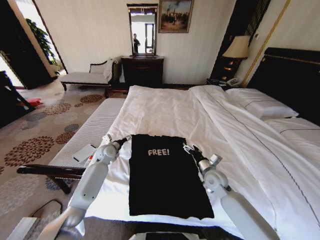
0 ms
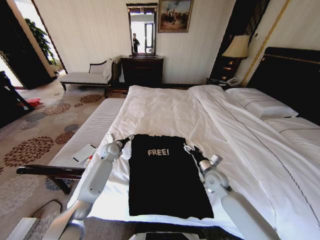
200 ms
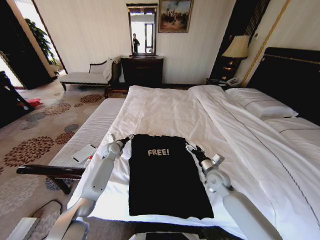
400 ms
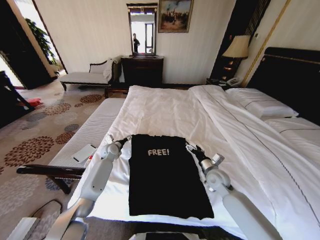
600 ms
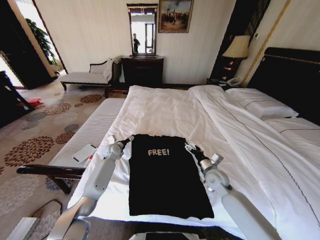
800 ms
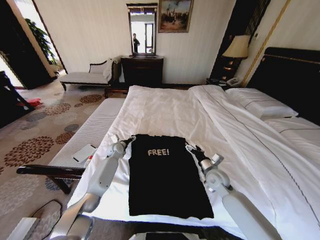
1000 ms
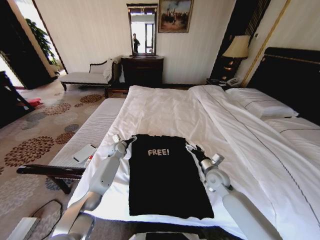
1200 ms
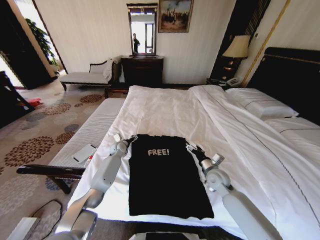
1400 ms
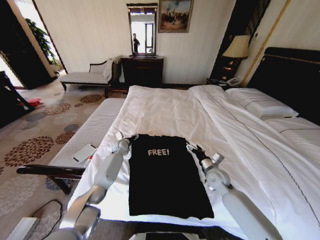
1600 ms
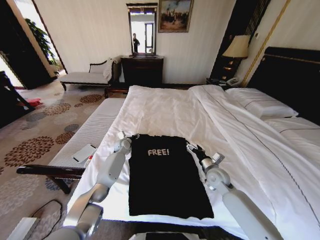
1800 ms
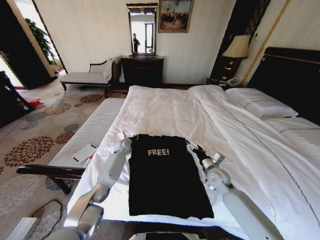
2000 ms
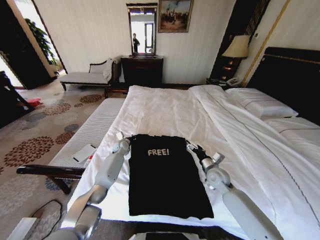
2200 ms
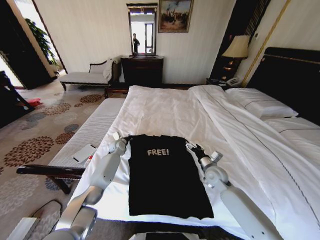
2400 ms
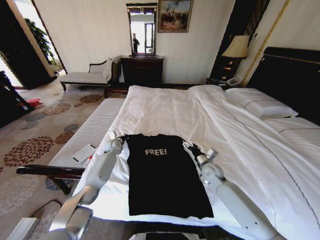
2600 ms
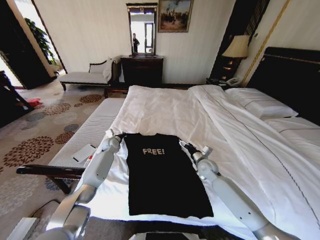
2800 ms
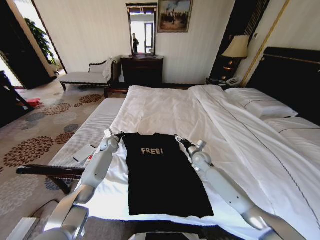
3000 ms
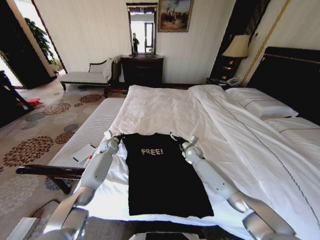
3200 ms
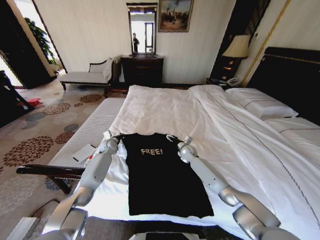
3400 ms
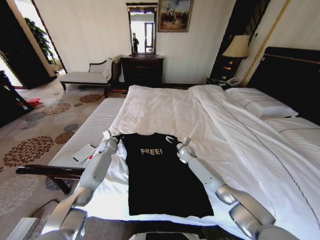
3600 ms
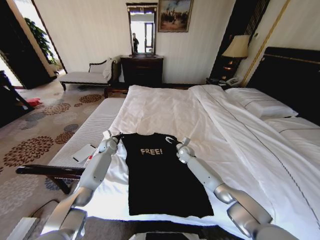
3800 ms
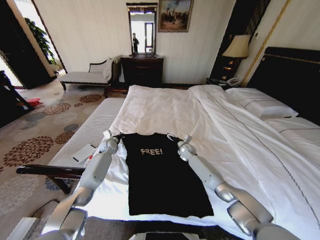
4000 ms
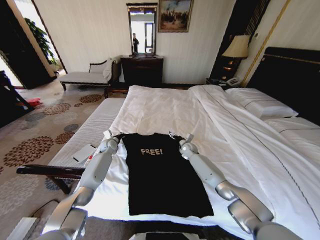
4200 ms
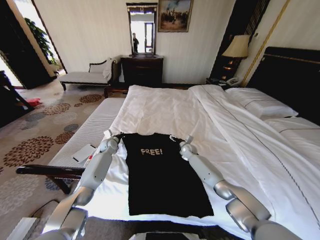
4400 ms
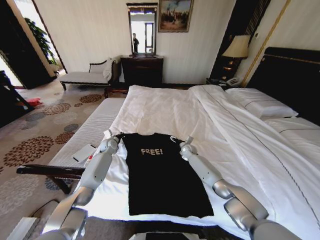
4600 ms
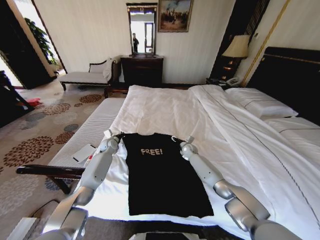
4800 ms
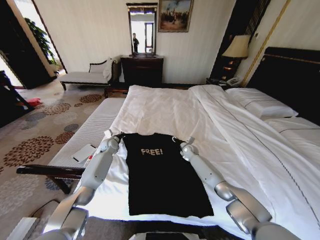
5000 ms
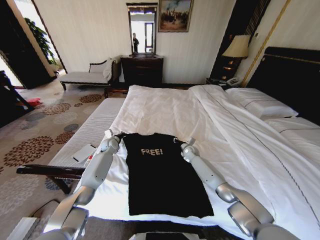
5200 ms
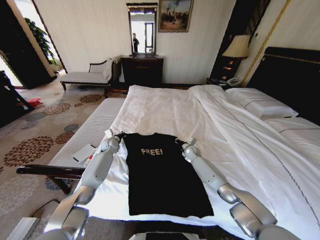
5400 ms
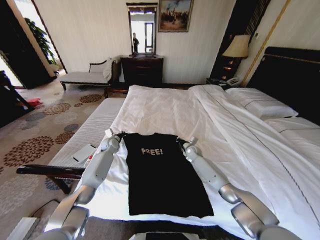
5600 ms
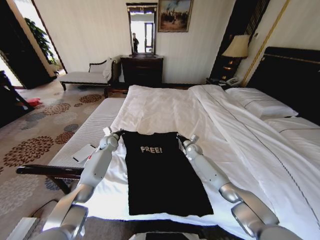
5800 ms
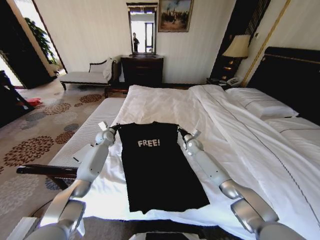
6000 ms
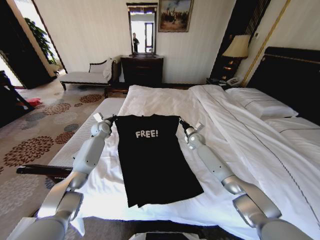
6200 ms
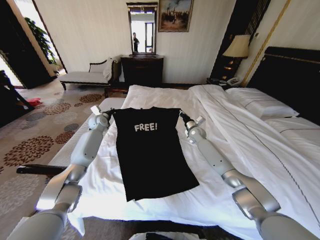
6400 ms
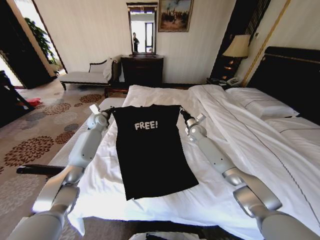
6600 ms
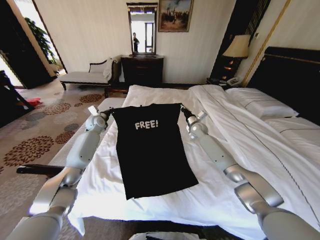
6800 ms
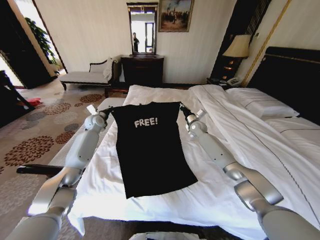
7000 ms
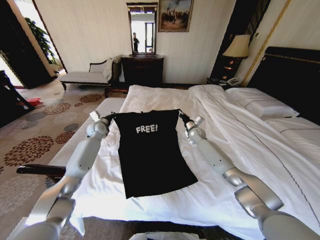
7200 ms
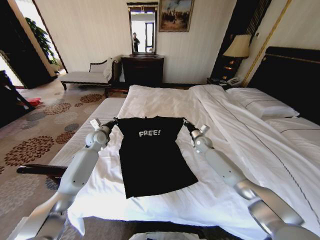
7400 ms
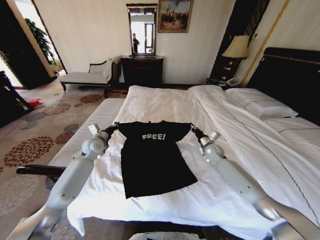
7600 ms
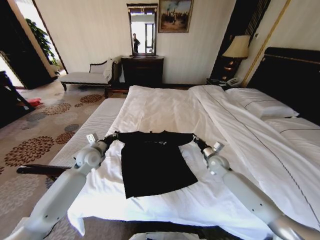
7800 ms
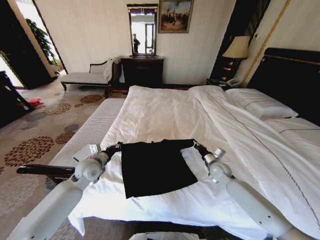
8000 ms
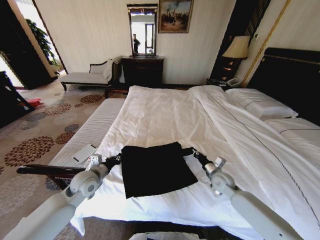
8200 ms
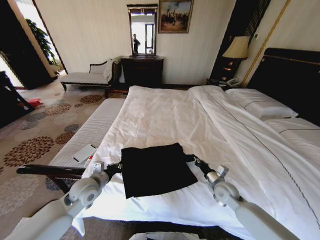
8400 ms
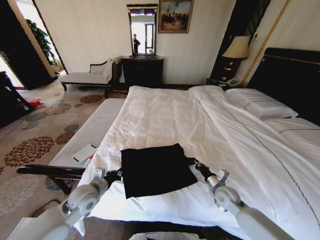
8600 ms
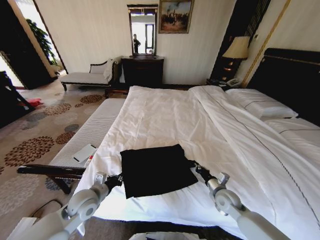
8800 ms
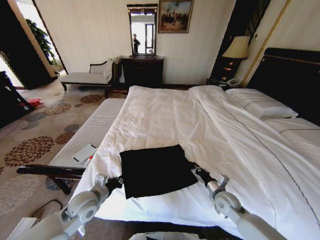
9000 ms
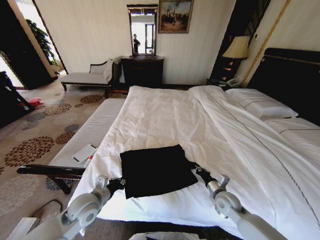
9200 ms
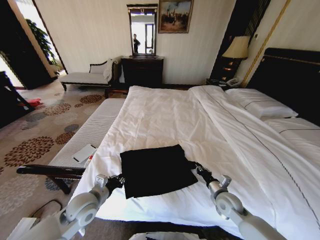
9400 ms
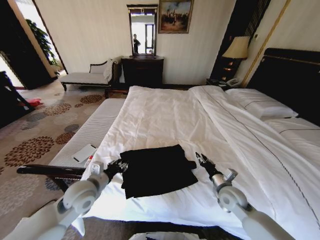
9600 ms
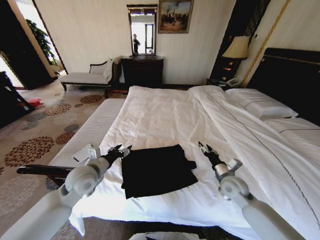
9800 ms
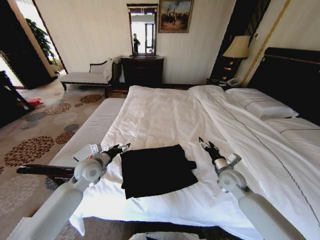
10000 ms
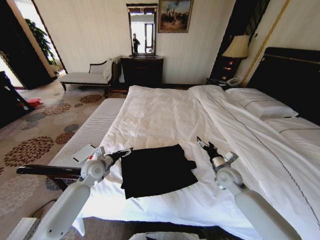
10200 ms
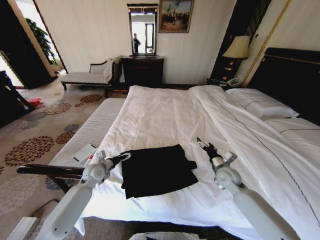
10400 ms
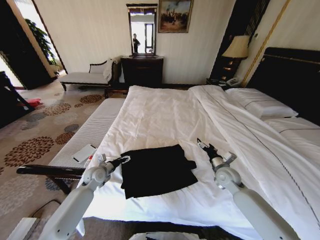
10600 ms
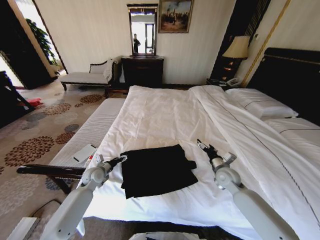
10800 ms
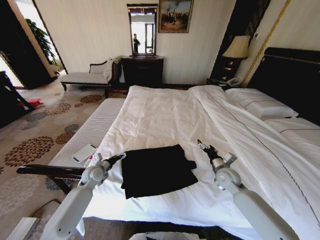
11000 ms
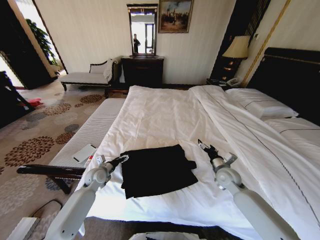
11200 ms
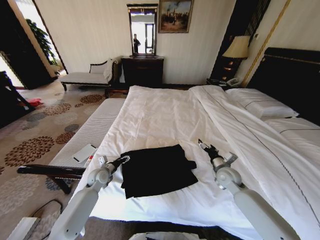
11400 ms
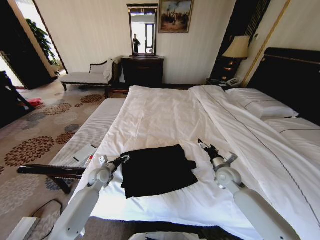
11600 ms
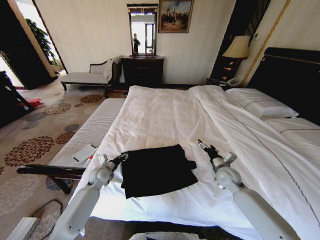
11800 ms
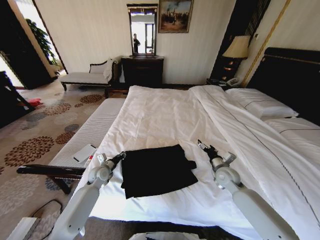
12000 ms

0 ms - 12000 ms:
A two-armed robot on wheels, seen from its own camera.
Task of the whole recording: Fold the clothes on the bed.
0 ms - 1600 ms: The left gripper shifts about 10 cm forward.
1600 ms - 3000 ms: The right gripper travels forward by some 10 cm; the left gripper shifts approximately 5 cm to the left, and closes its fingers.
3000 ms - 4400 ms: The right gripper travels forward and downward by about 10 cm.
4400 ms - 6000 ms: The right gripper ends up approximately 5 cm from where it was, and closes up. The left gripper heads upward, covering about 5 cm.
6000 ms - 7600 ms: The left gripper heads backward, covering about 10 cm; the right gripper goes roughly 10 cm to the right and backward.
7600 ms - 9000 ms: Both grippers travel together backward, about 25 cm.
9000 ms - 10400 ms: The right gripper goes some 10 cm forward and upward, and opens up, while the left gripper is displaced forward by roughly 15 cm, and opens.
10400 ms - 12000 ms: The left gripper closes.

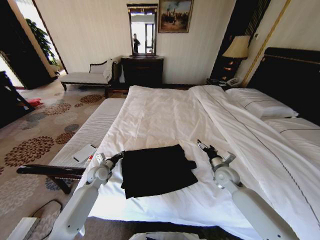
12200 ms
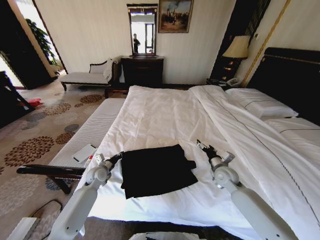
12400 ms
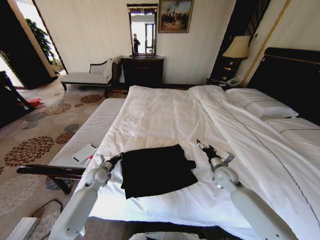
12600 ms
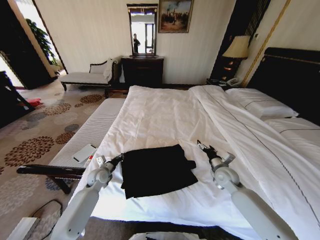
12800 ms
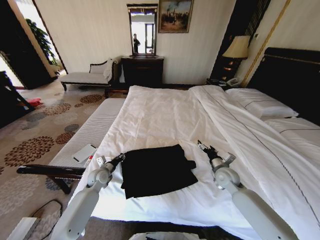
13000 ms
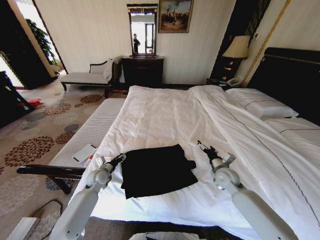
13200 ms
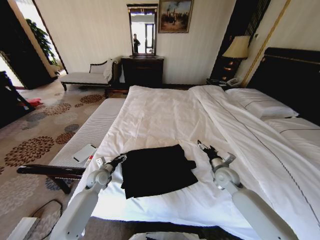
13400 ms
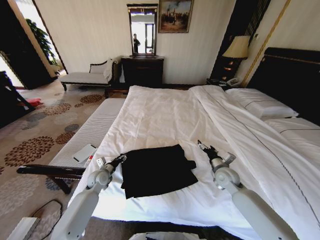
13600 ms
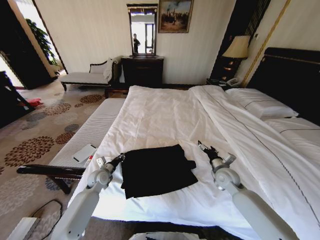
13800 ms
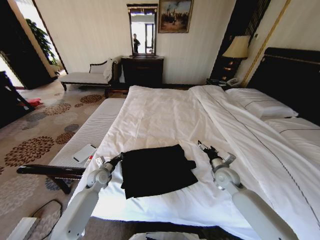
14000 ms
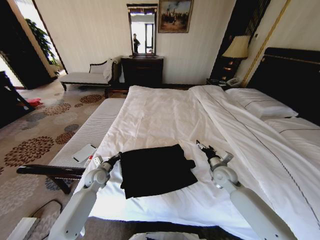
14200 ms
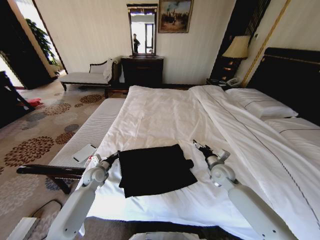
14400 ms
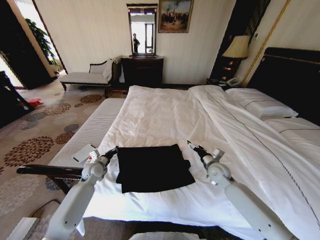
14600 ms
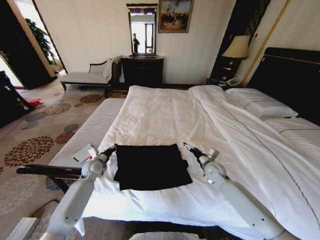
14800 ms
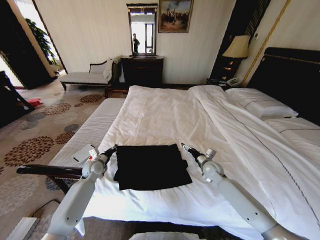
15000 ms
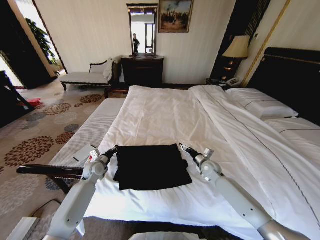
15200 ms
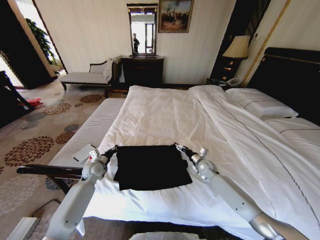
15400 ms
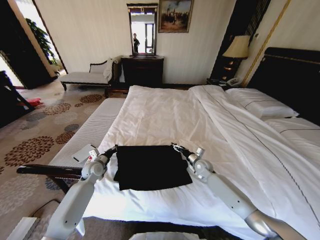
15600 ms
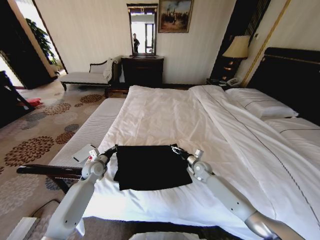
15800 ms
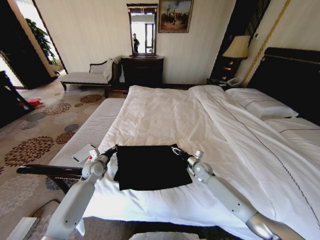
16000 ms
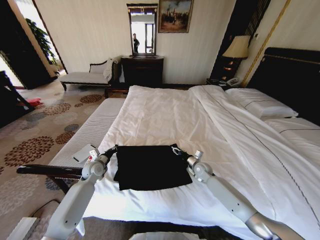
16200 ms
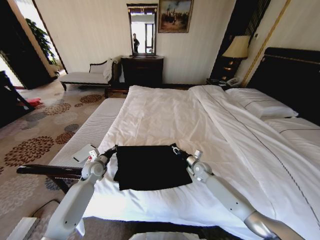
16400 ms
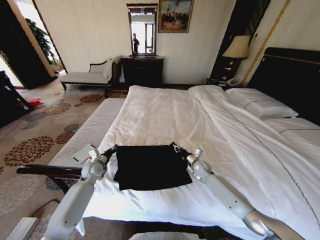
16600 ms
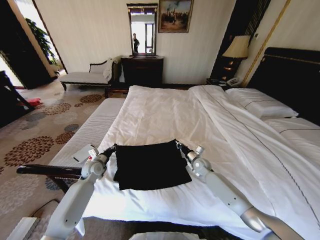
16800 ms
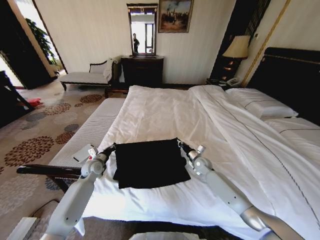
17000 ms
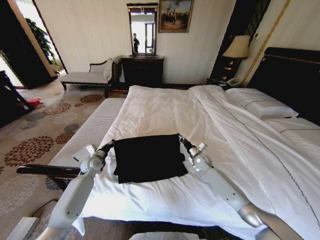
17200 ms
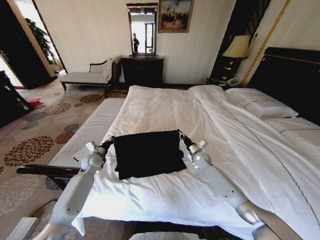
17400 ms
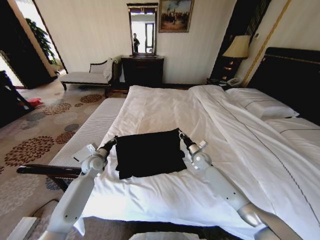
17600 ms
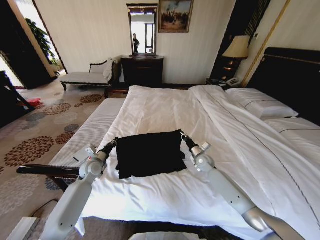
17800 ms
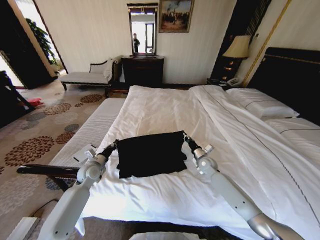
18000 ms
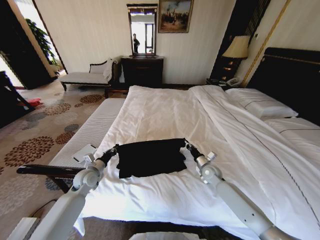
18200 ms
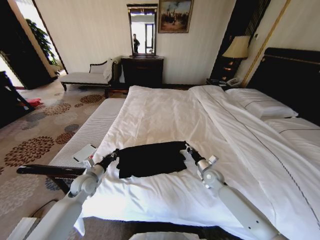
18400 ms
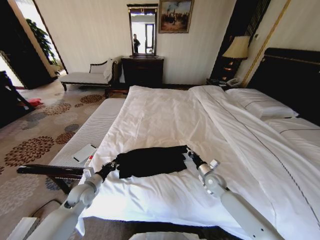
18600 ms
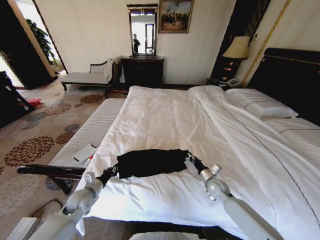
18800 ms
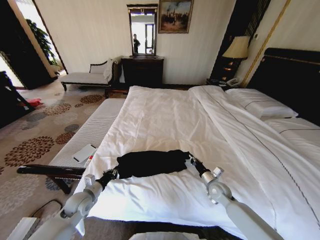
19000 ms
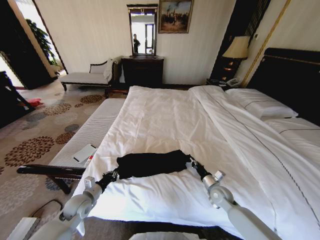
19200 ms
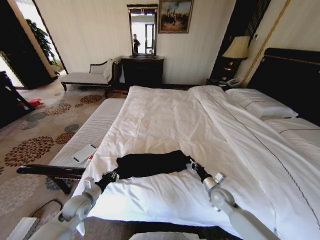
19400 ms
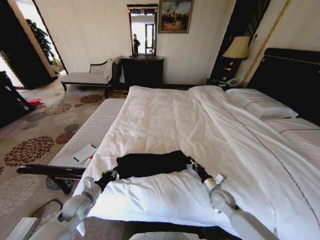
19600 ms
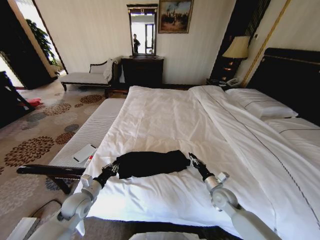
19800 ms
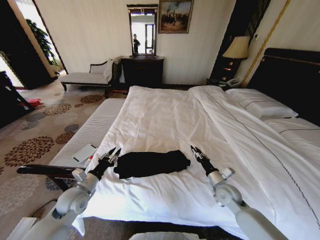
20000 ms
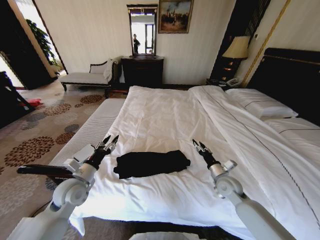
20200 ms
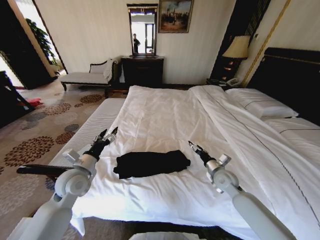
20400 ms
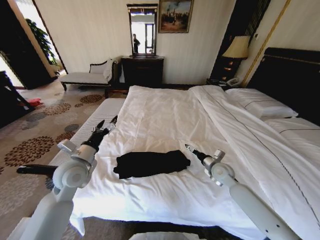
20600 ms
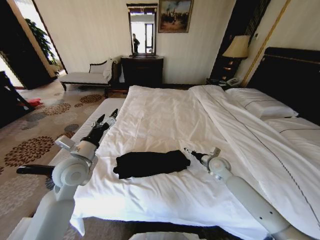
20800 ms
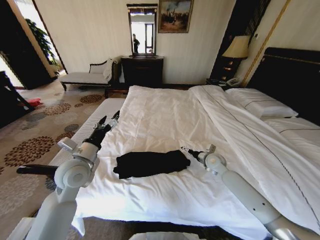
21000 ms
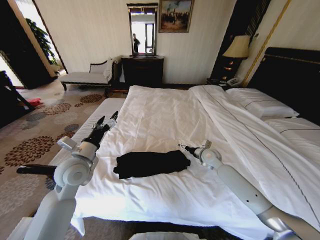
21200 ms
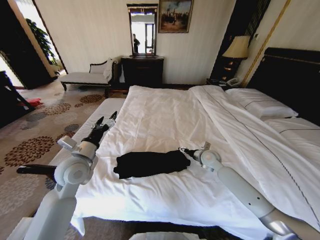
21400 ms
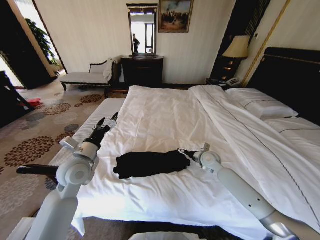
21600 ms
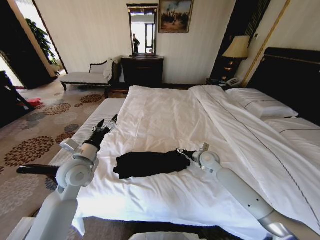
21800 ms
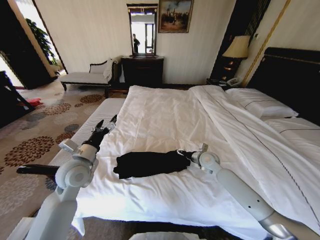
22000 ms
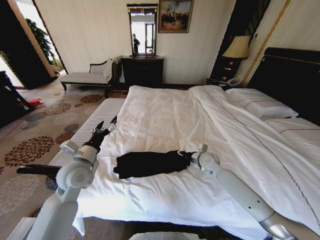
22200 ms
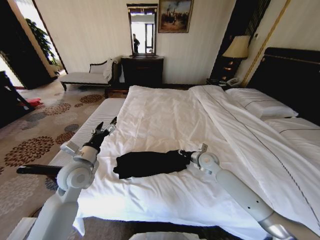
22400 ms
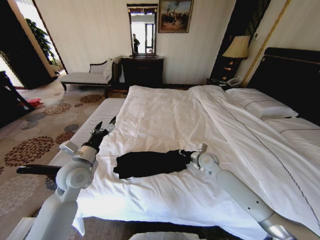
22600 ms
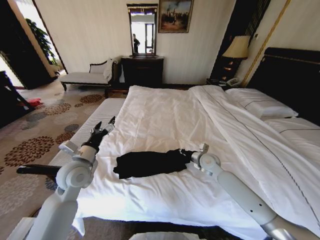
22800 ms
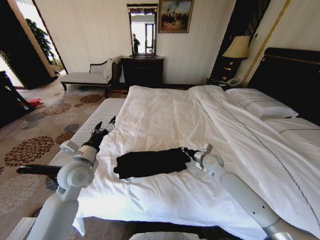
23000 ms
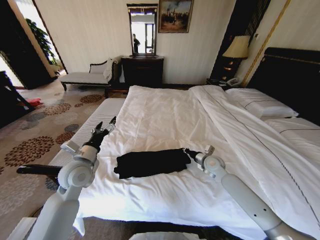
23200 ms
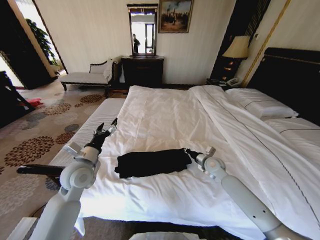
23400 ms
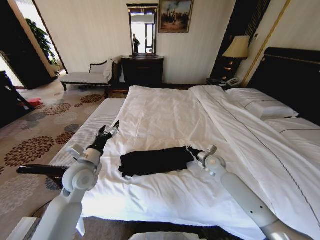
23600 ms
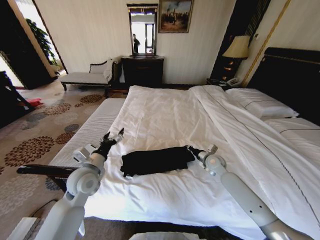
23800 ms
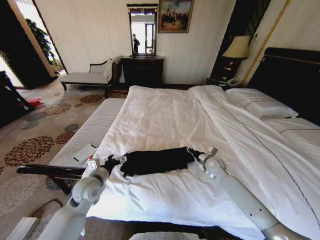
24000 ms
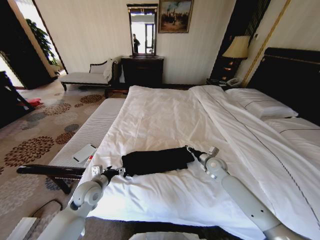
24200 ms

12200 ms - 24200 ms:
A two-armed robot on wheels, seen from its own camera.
Task of the whole recording: Fold the clothes on the bed.
12200 ms - 13800 ms: The left gripper opens, then closes again.
13800 ms - 15200 ms: The left gripper closes its fingers. Meanwhile the right gripper shifts approximately 5 cm forward.
15200 ms - 16600 ms: The right gripper ends up about 5 cm from where it was, and closes.
16600 ms - 18200 ms: The left gripper heads backward, covering roughly 5 cm, while the right gripper ends up approximately 5 cm from where it was.
18200 ms - 19800 ms: The two grippers go roughly 10 cm backward.
19800 ms - 21200 ms: The right gripper goes about 20 cm forward and upward, and opens up. Meanwhile the left gripper heads upward, covering about 15 cm, and opens up.
21200 ms - 22600 ms: The right gripper closes up.
22600 ms - 24200 ms: The right gripper changes place by roughly 5 cm; the left gripper shifts some 10 cm downward.
